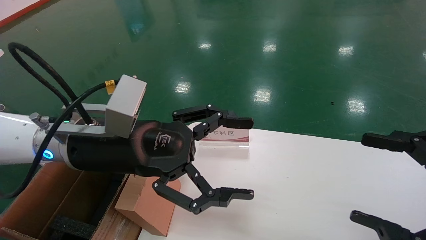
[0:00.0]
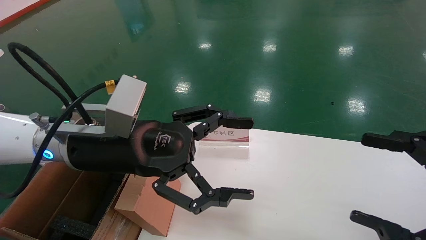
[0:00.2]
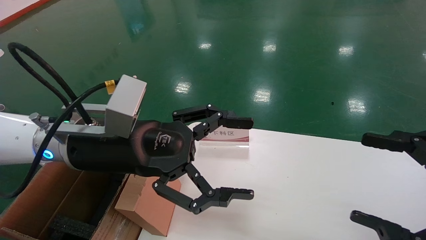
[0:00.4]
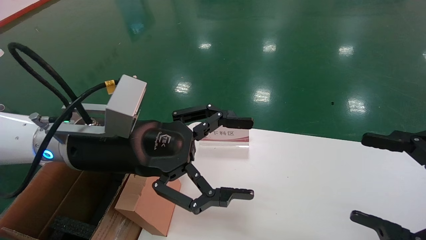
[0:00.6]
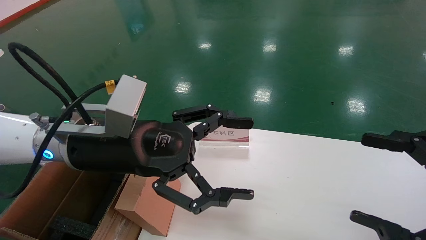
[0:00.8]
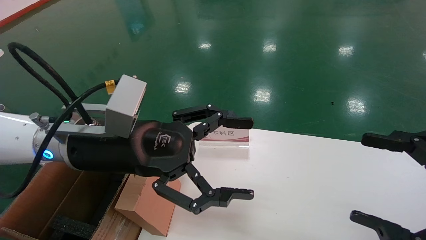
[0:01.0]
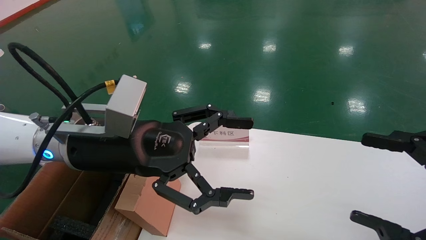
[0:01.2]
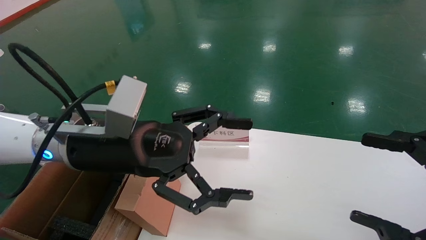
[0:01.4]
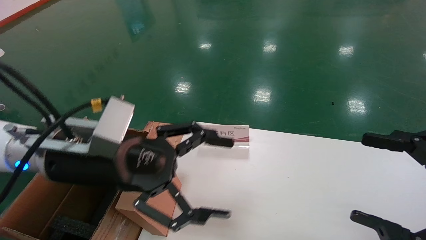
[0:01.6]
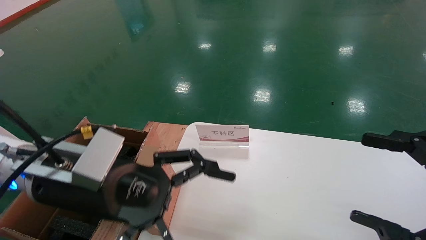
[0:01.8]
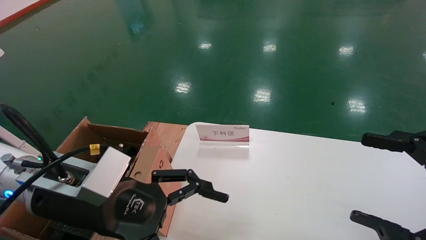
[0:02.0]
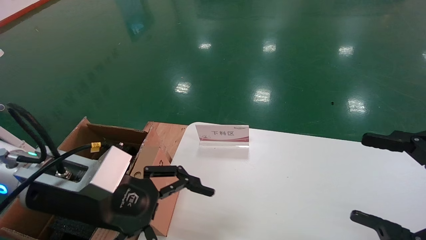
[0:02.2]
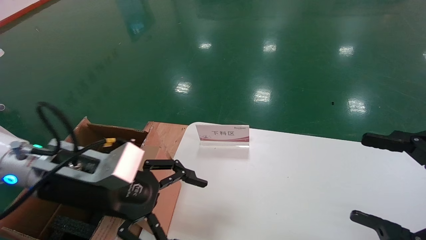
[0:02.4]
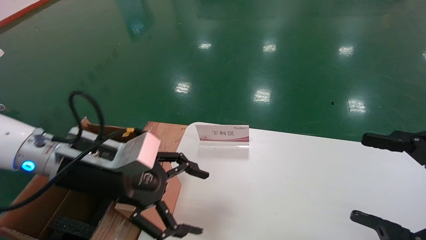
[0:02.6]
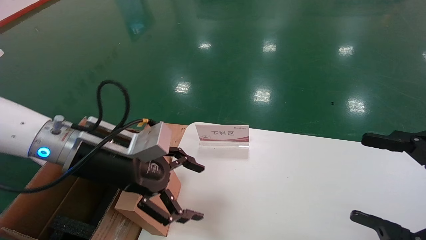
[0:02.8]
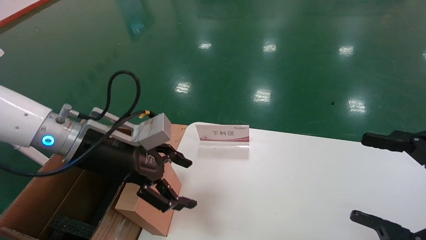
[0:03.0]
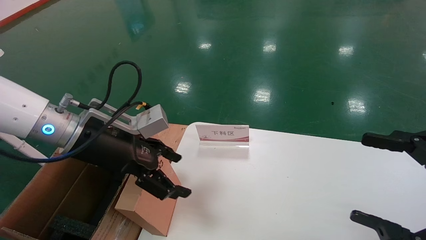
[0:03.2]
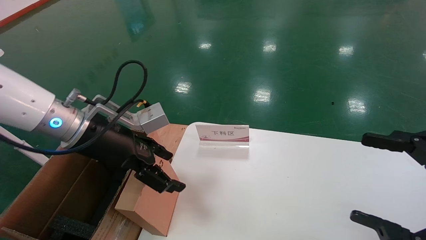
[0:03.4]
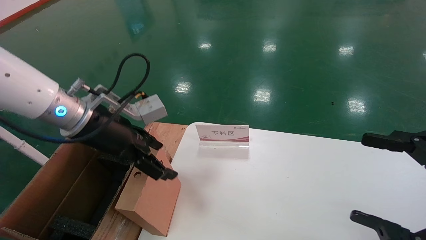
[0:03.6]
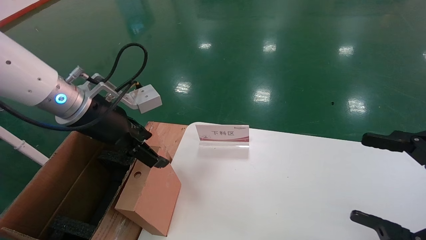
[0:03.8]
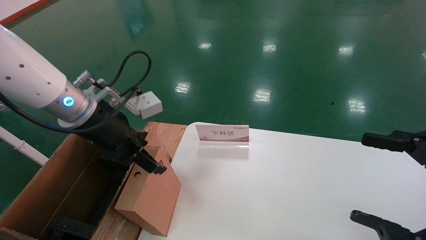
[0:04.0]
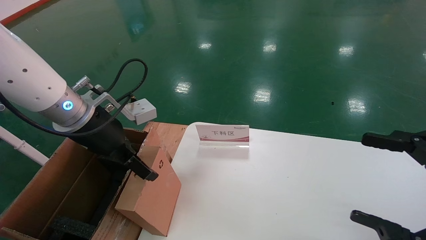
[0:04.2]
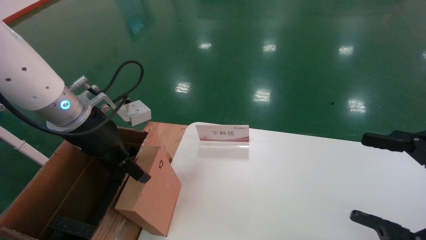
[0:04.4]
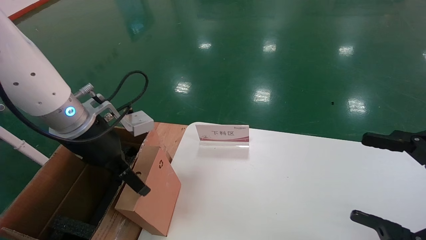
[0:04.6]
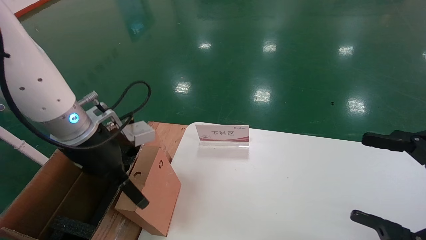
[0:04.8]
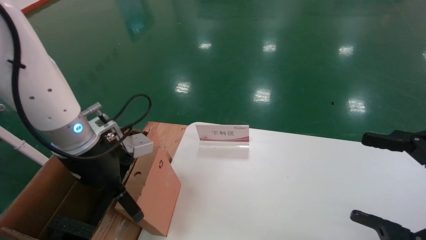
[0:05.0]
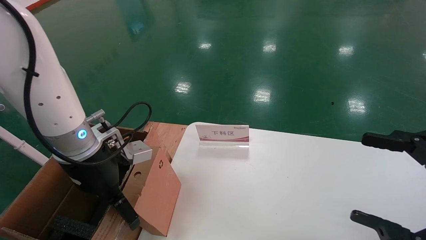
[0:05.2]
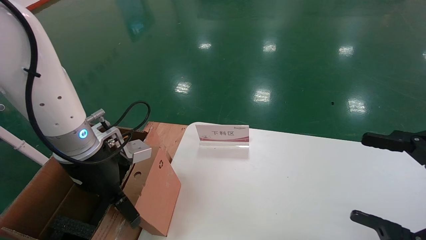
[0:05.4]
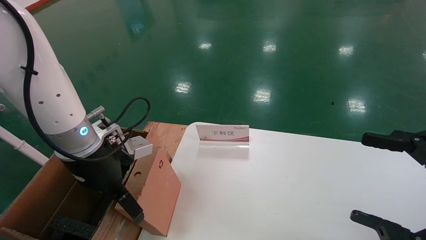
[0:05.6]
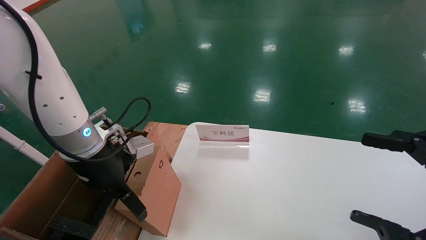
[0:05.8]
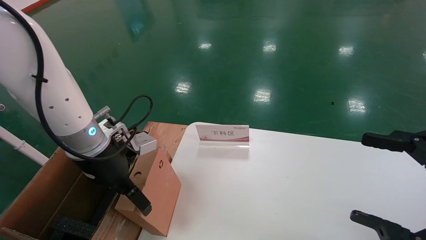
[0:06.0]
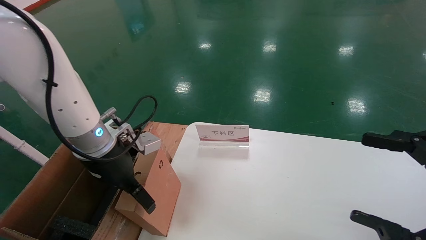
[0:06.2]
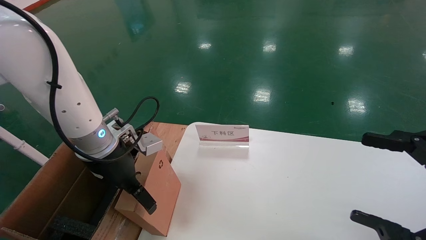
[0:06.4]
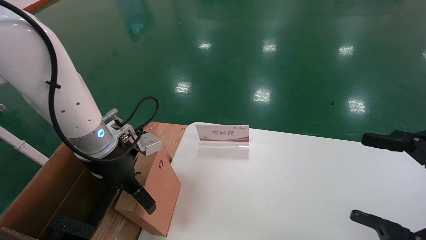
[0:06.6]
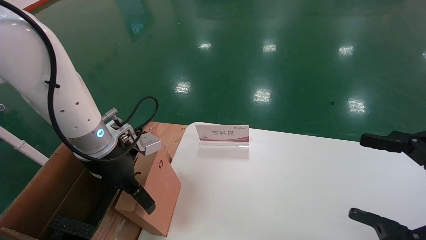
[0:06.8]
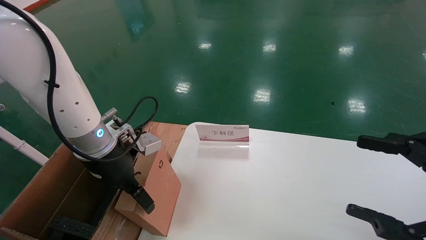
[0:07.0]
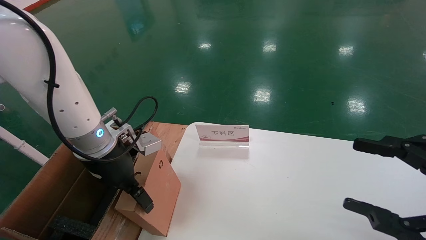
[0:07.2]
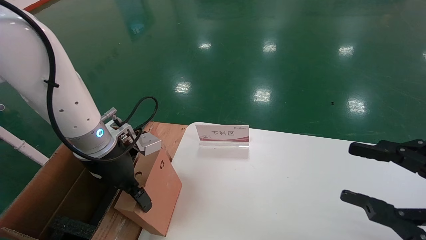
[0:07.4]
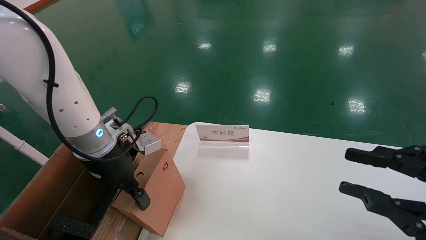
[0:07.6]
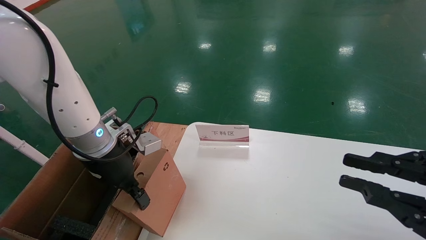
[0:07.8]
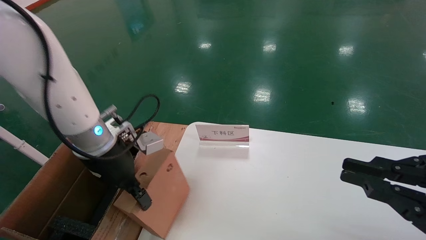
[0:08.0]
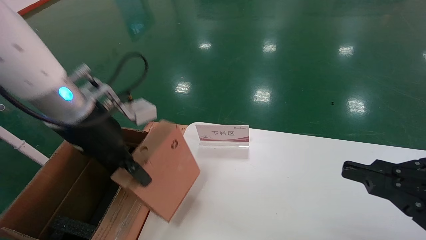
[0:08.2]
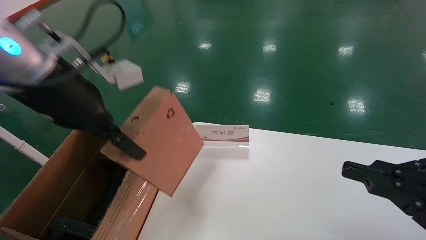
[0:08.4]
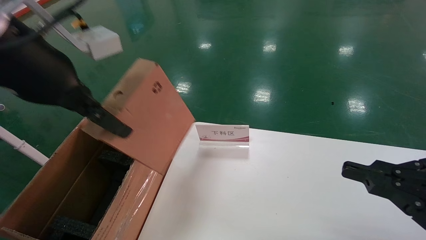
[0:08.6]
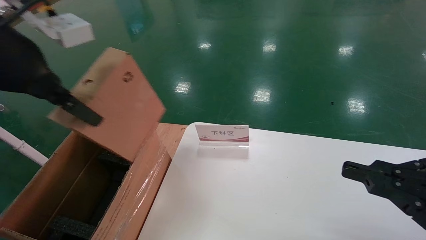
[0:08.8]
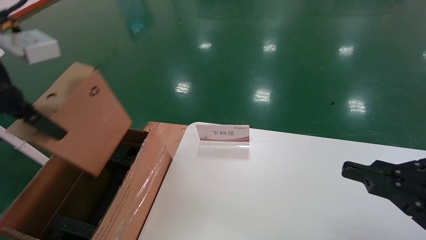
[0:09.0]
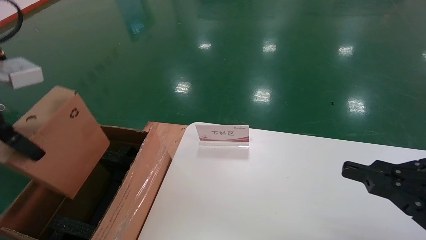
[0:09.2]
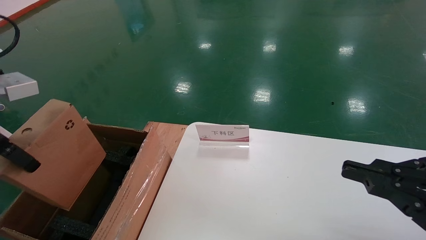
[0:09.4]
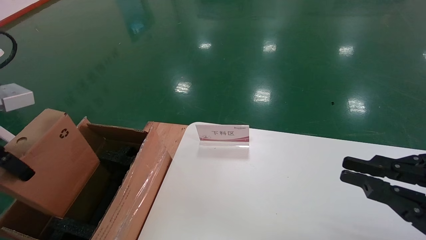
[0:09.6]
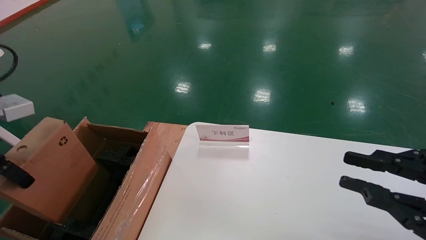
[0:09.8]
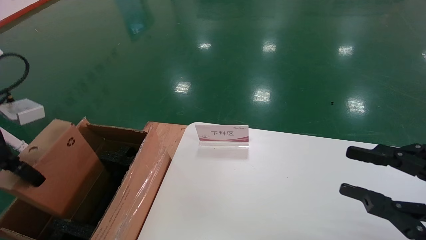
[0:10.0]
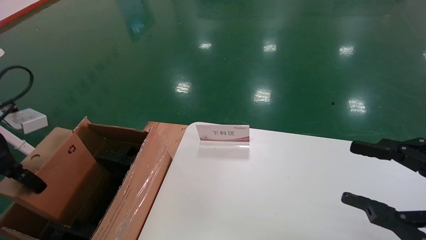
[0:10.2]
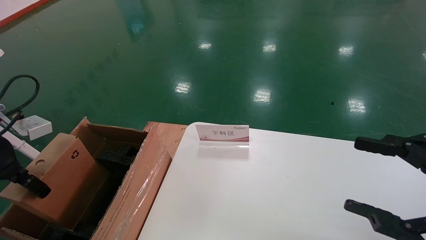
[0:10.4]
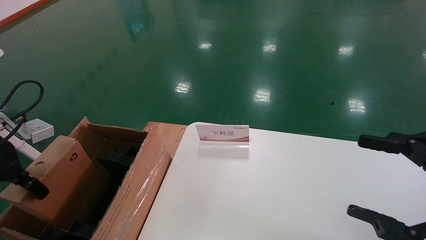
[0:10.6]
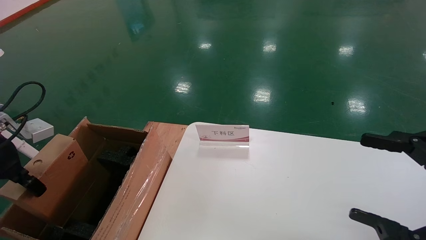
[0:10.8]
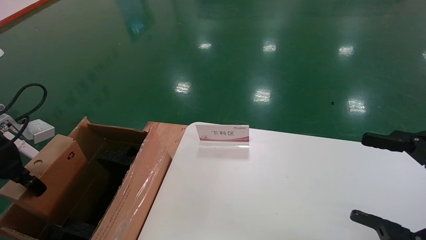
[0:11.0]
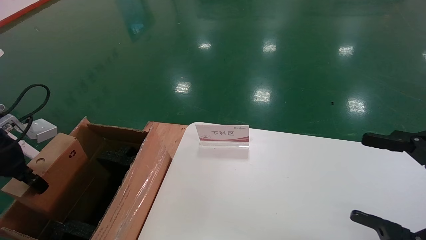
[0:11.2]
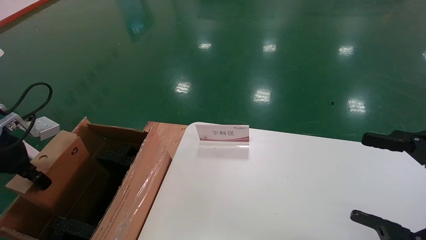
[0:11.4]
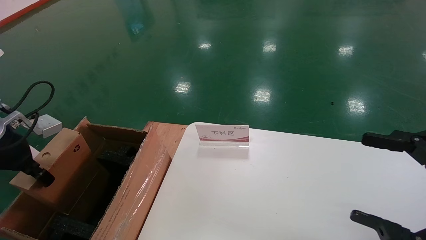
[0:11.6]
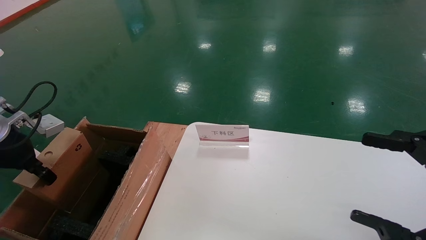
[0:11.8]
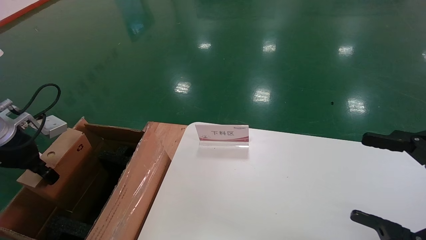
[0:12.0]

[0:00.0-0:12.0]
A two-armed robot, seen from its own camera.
Task of the whole recording: pick up the small cardboard box and load it into the large cardboard box.
Step, 0:01.6 to 0:07.8: Pick up the mouse and power cord box.
0:00.0 to 0:01.6: The grippers make only small movements.
0:01.6 to 0:03.0: The left gripper ends up approximately 5 cm from where it was.
0:04.4 to 0:06.0: The left gripper changes place by about 5 cm.
0:06.0 to 0:07.6: The right gripper closes up. Meanwhile the left gripper closes.
0:07.6 to 0:09.0: The right gripper closes its fingers. Meanwhile the left gripper heads upward, backward and to the left, covering approximately 25 cm.
0:09.0 to 0:10.4: The right gripper opens up. The left gripper heads downward and to the left, covering approximately 15 cm.
0:10.4 to 0:12.0: The right gripper opens up. The left gripper goes roughly 5 cm forward.

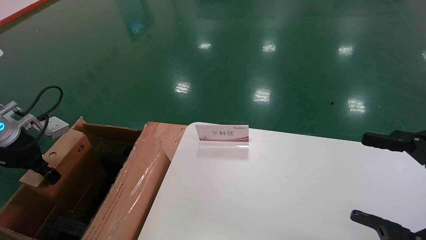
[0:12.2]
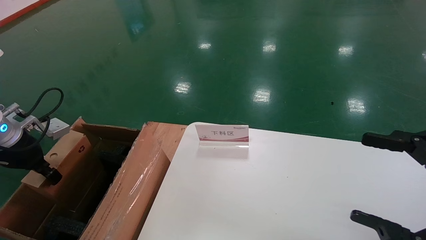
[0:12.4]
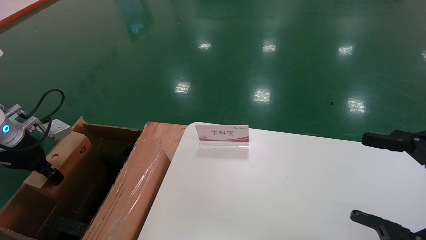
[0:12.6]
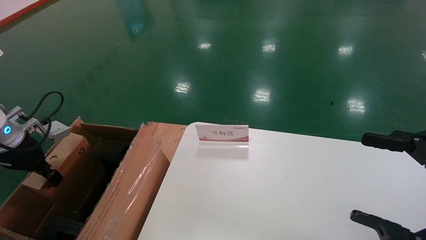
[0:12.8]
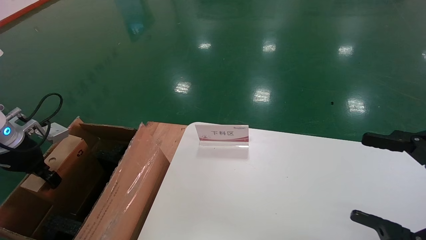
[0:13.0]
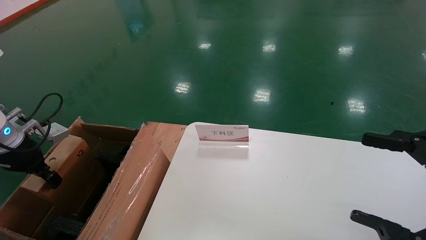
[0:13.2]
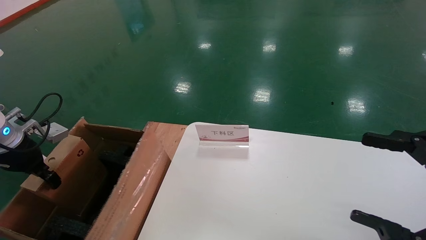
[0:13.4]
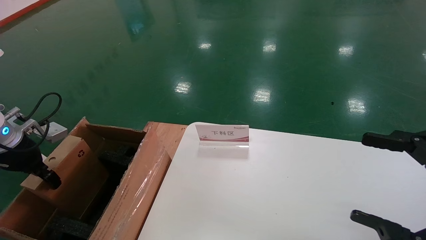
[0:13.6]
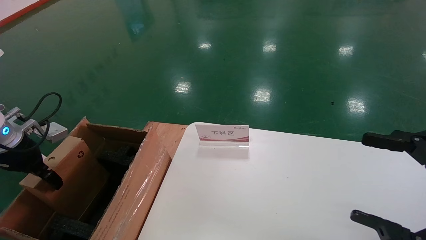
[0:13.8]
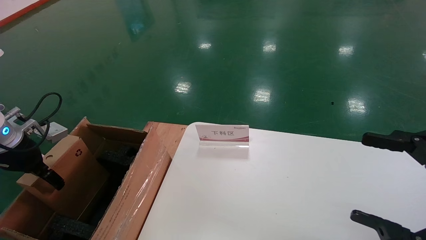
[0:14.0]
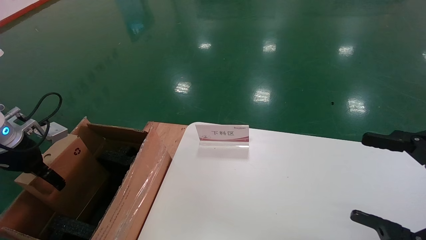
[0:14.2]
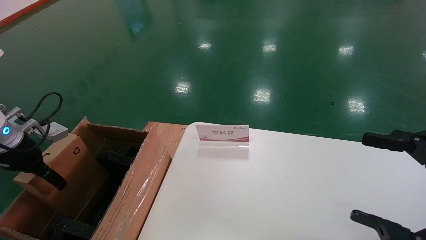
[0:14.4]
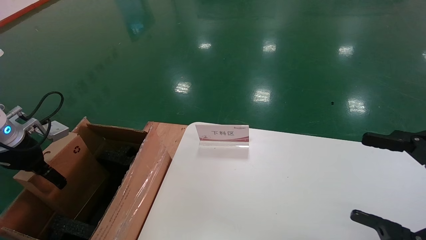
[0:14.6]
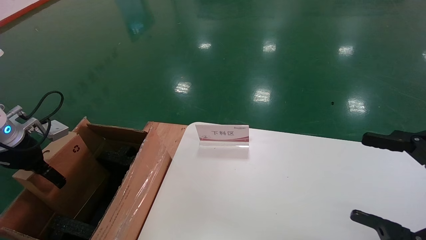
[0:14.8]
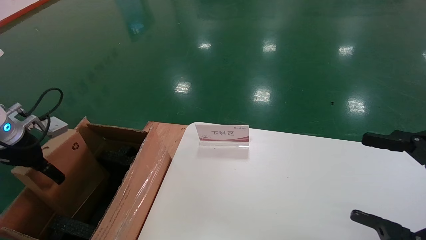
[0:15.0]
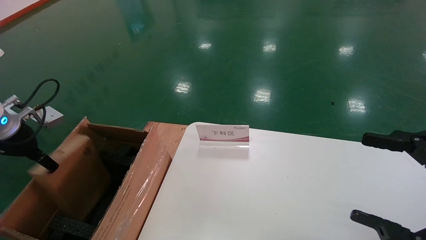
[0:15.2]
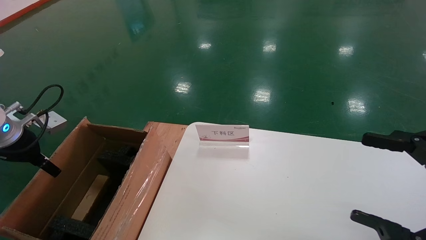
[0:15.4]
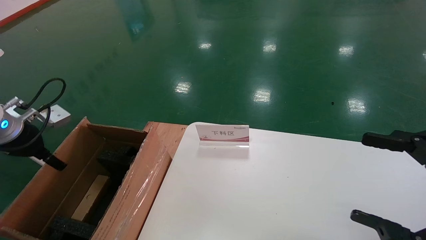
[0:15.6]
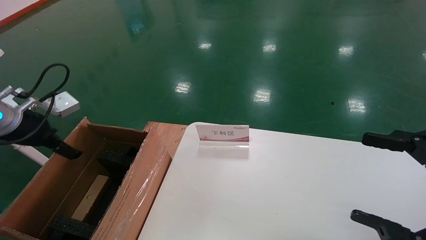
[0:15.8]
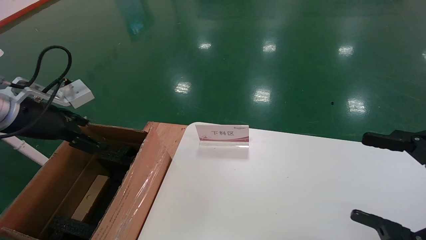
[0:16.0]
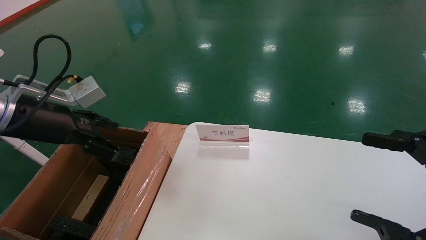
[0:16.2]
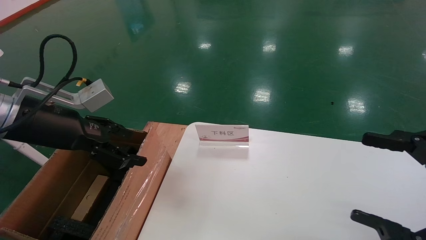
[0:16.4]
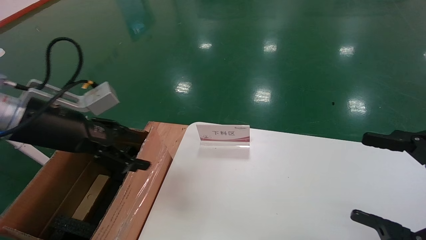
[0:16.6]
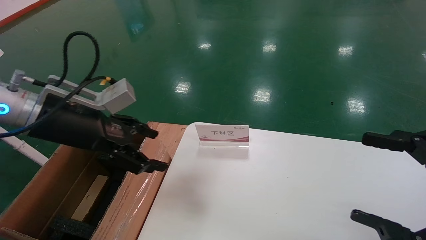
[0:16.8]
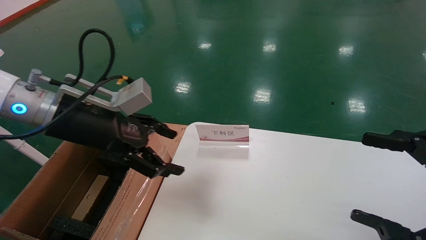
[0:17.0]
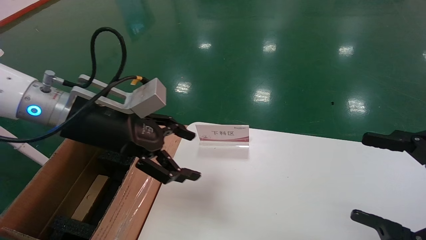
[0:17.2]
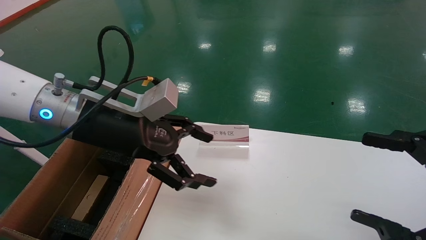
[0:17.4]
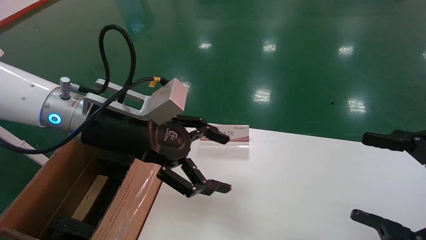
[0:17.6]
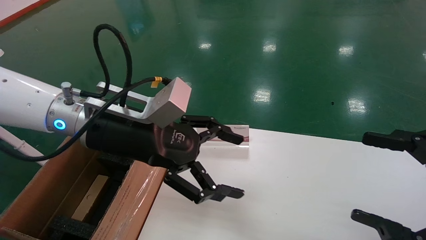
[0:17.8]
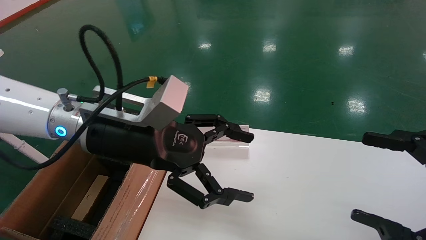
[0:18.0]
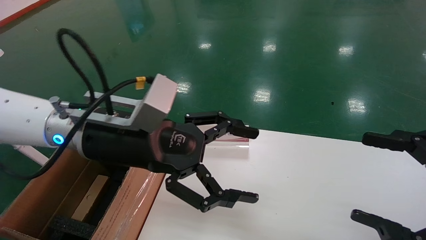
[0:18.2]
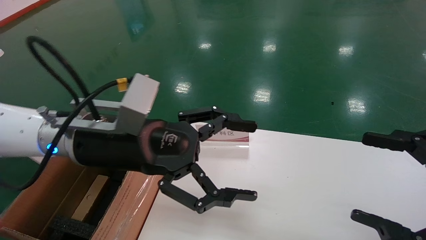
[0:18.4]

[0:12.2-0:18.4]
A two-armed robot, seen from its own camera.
Task of the whole recording: pick up the small cardboard box and load it into the large cardboard box.
Step, 0:12.2 to 0:15.4: Place the mouse and power cord box into the case.
0:12.2 to 0:13.8: There are only small adjustments of the grippers.
0:13.8 to 0:15.4: The left gripper opens its fingers.
0:15.4 to 0:16.8: The left gripper is displaced to the right and upward by approximately 20 cm.
0:16.8 to 0:18.4: The left gripper goes about 10 cm to the right.
